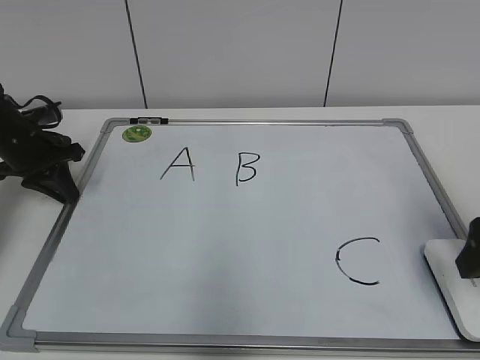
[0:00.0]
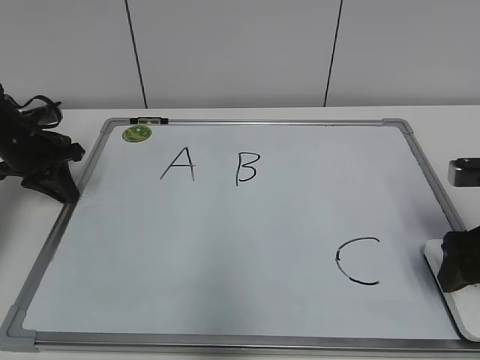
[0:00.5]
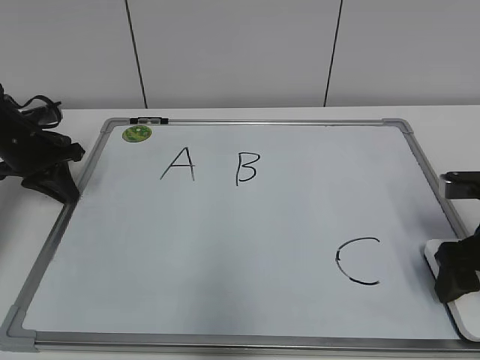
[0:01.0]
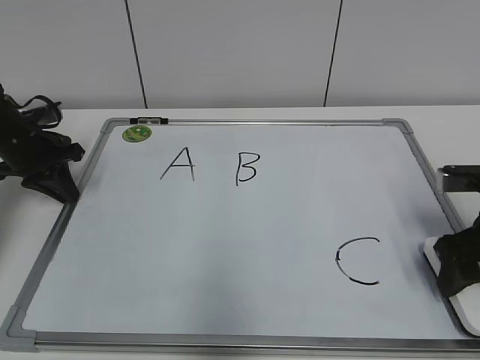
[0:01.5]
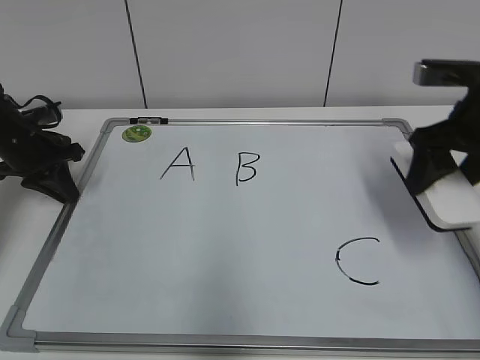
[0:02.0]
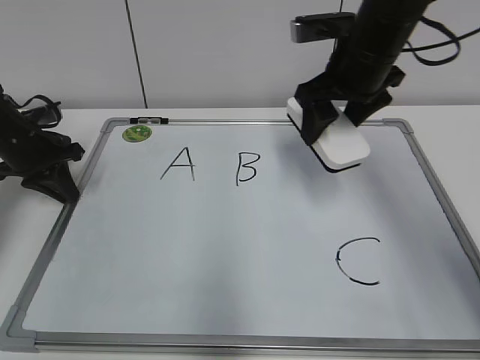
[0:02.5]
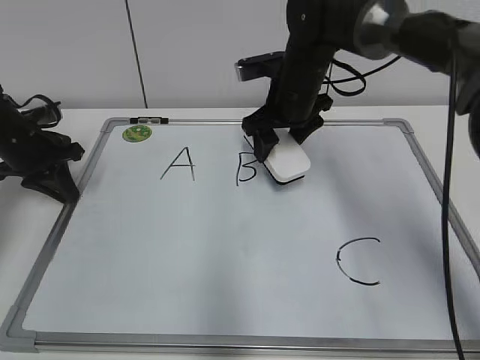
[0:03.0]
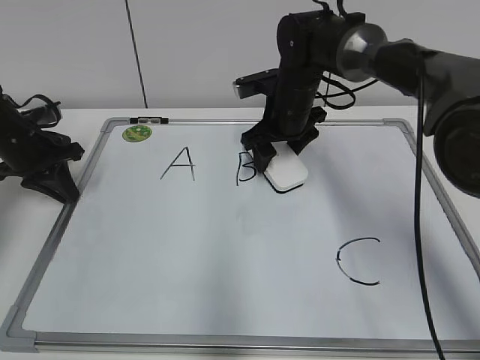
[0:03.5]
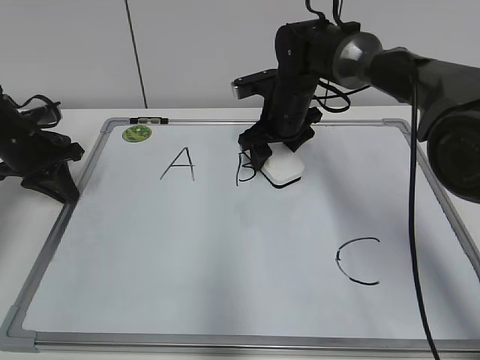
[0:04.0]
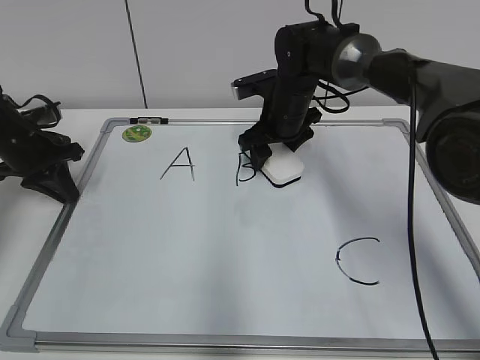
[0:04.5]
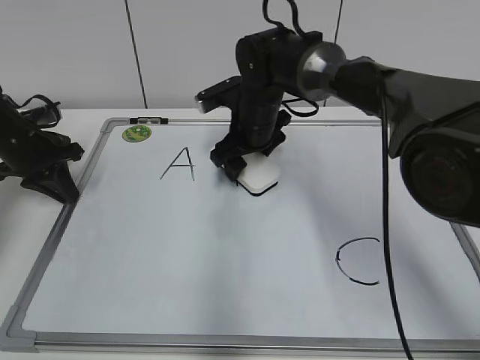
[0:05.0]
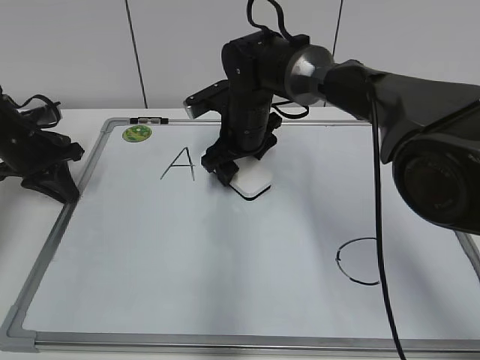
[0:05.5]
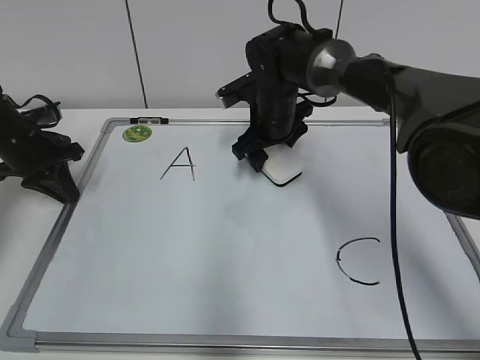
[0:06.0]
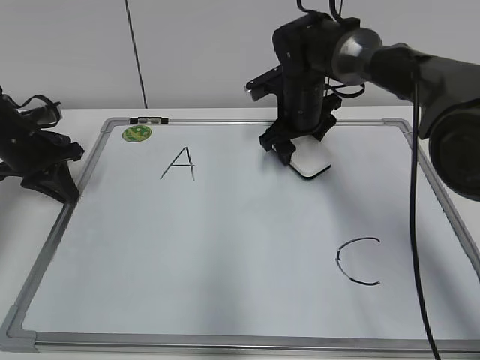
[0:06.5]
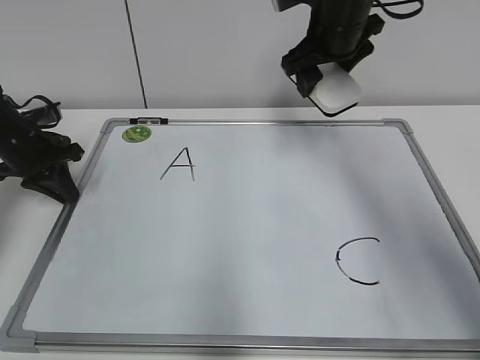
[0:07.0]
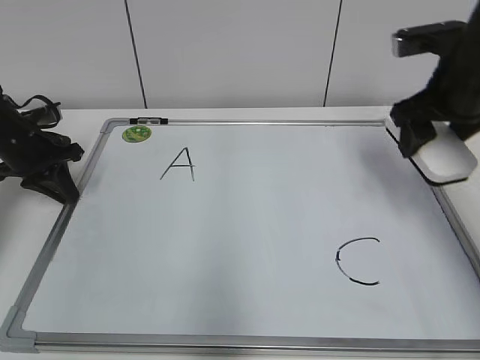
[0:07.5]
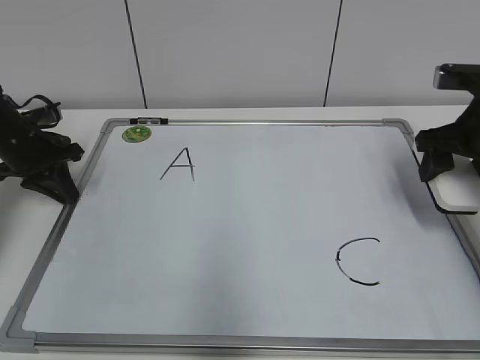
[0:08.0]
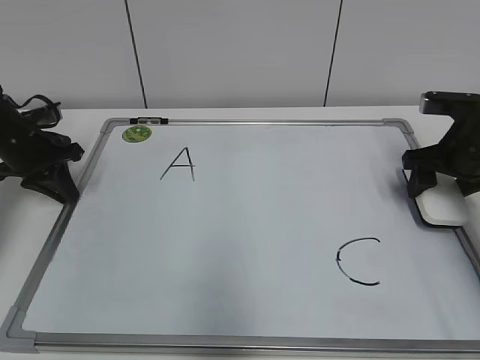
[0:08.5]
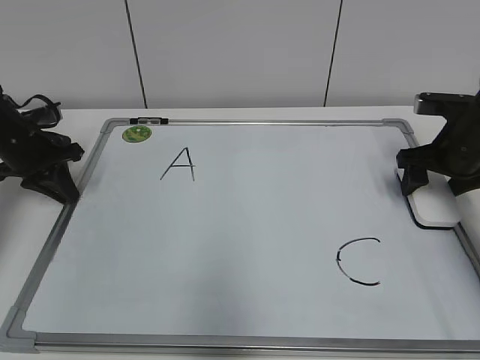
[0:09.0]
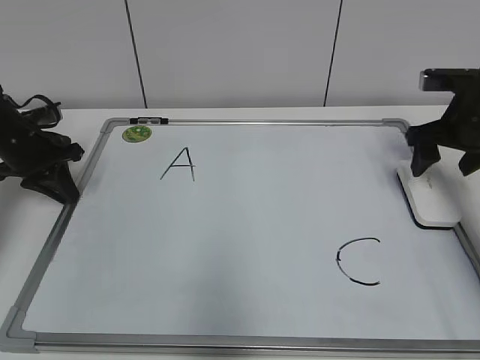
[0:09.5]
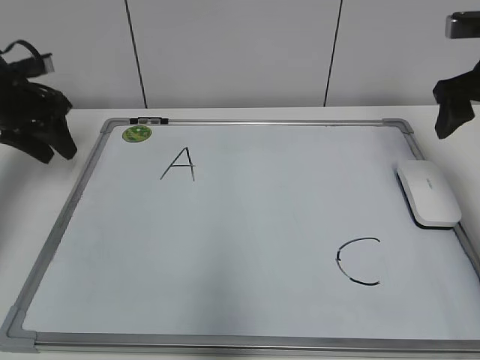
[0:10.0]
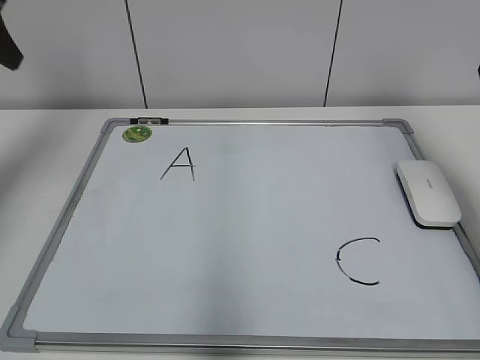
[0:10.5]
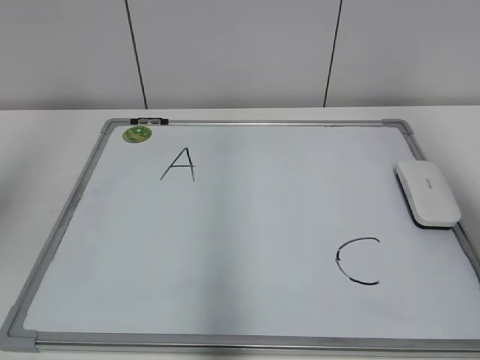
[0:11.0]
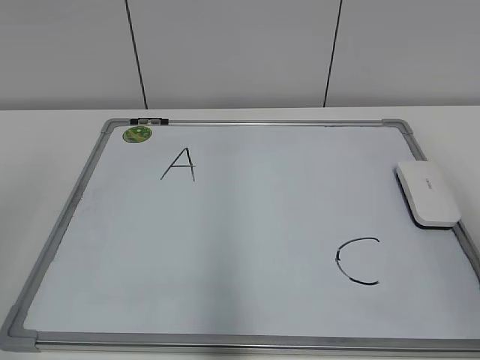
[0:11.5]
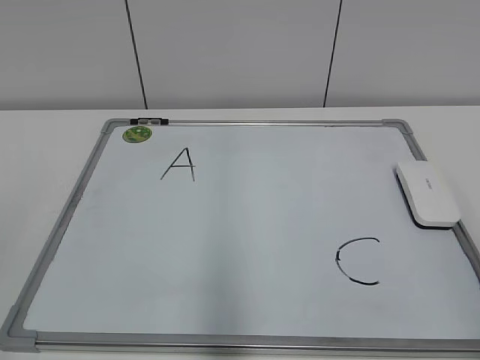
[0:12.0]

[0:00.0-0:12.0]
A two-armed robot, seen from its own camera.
Task of the whole recording: pick up the eraser on the blackboard and erase the letter "B".
Step, 0:01.5 to 0:06.0: Erase the letter B with your right hand.
Step, 0:06.5 to 0:09.0: Put down the eraser with your right hand.
0:00.0 to 0:02.0: The right gripper travels forward by roughly 10 cm, and closes.
0:02.0 to 0:04.0: The right gripper travels to the left, forward and downward by roughly 25 cm.
0:06.0 to 0:08.0: The right gripper heads to the right and backward, covering roughly 25 cm.
0:08.0 to 0:10.0: The right gripper shifts by roughly 5 cm, and opens up; the left gripper heads upward, covering roughly 5 cm, and opens its fingers.
0:10.0 to 0:12.0: The grippers both shift backward by some 40 cm.

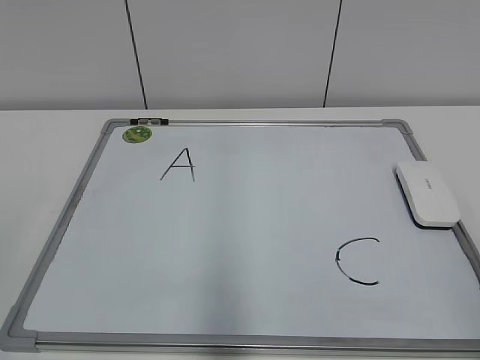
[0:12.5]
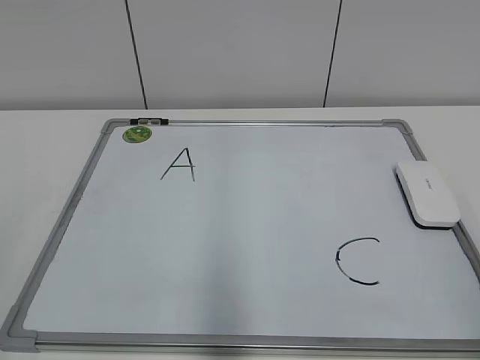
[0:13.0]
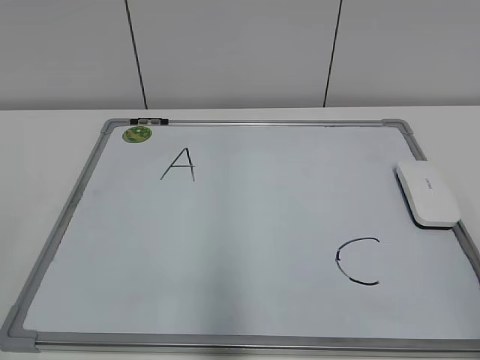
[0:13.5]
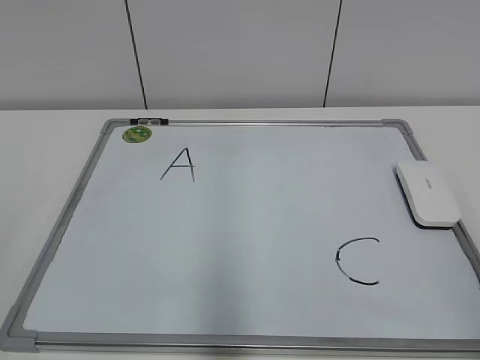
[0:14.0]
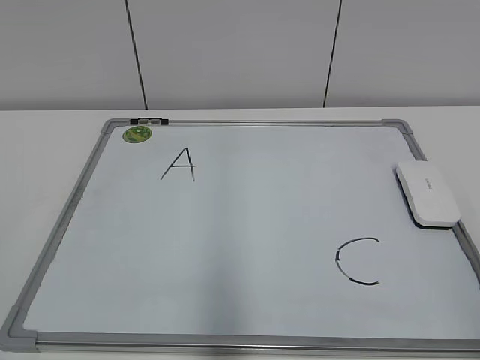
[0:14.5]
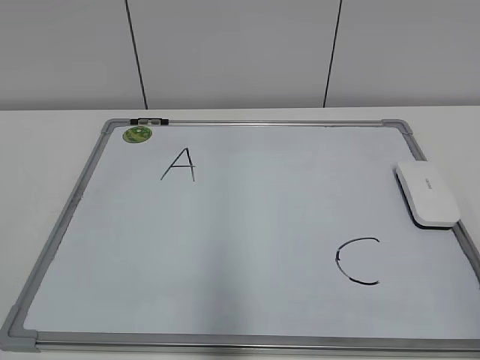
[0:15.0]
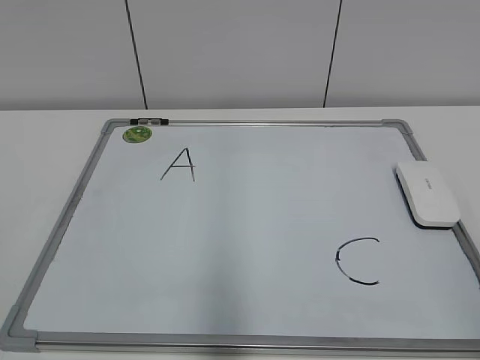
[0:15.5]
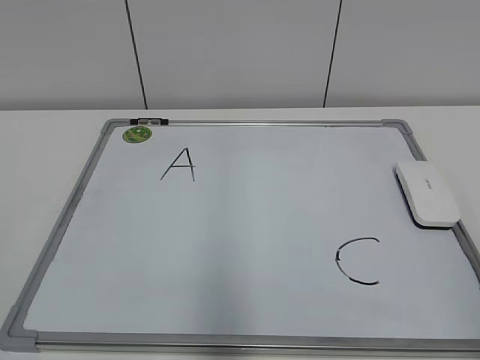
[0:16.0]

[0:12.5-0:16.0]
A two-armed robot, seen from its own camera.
Task of the whole recording: pick up the eraser on the blackboard and erase the letter "B".
0:14.5 to 0:16.0: The two grippers keep their place.
